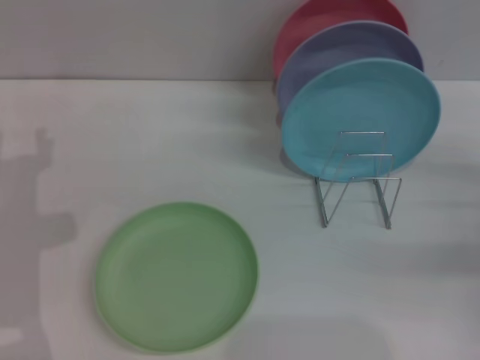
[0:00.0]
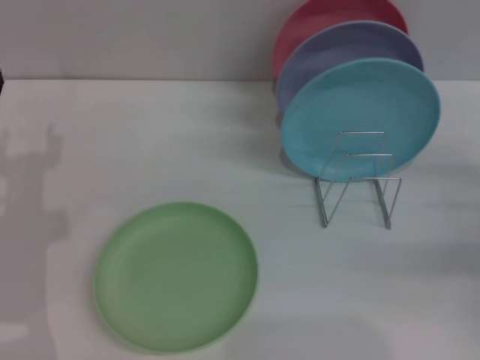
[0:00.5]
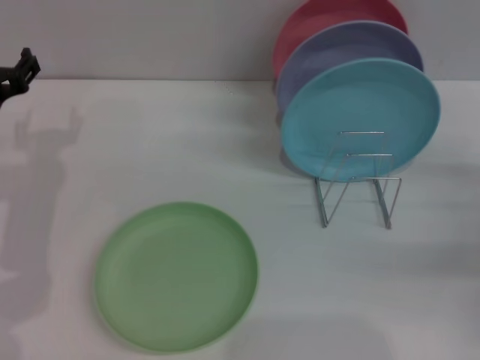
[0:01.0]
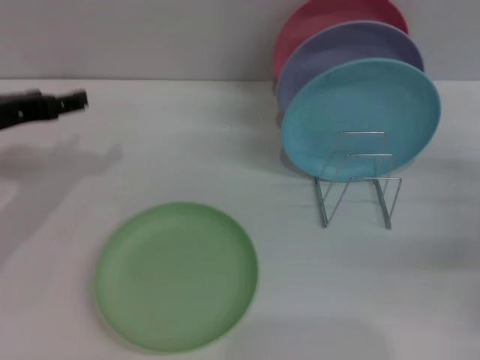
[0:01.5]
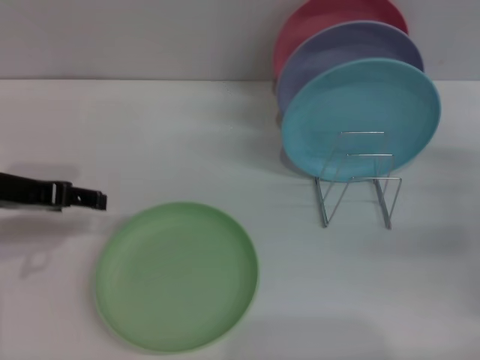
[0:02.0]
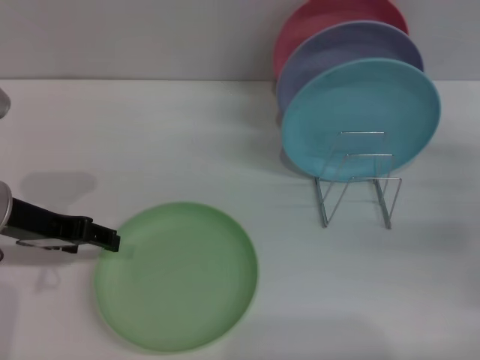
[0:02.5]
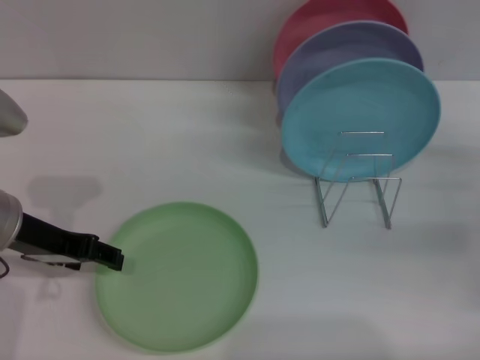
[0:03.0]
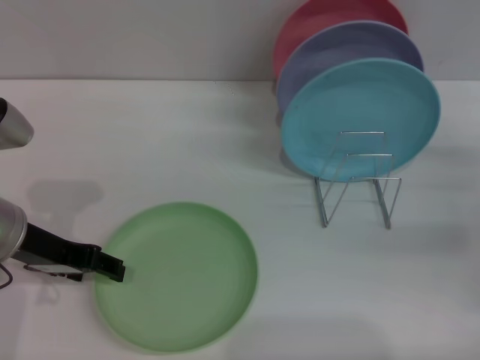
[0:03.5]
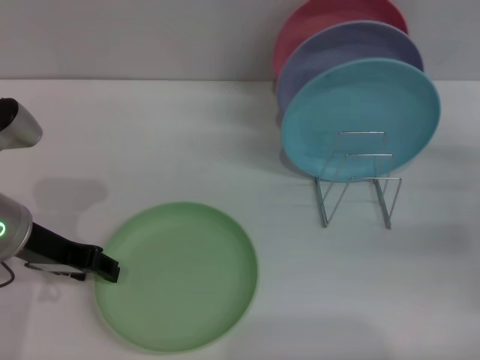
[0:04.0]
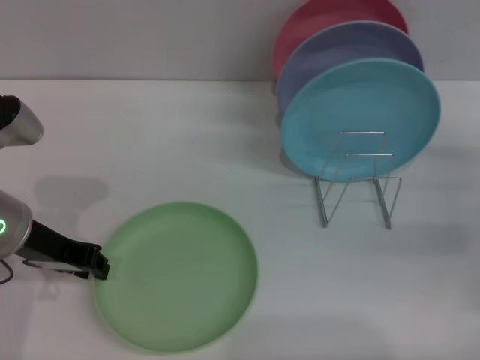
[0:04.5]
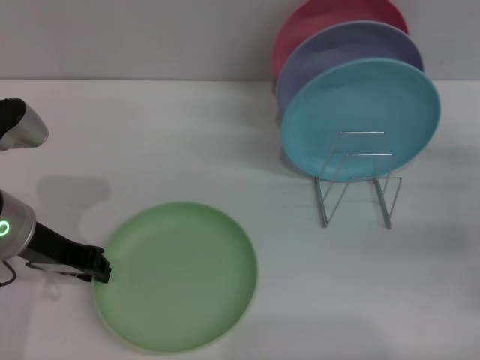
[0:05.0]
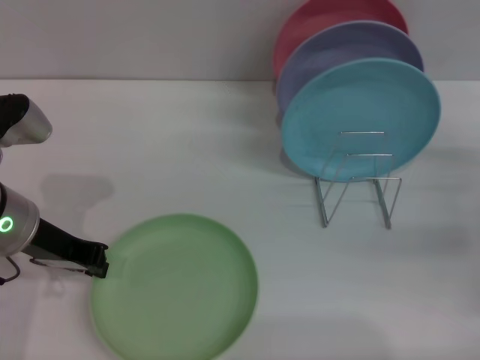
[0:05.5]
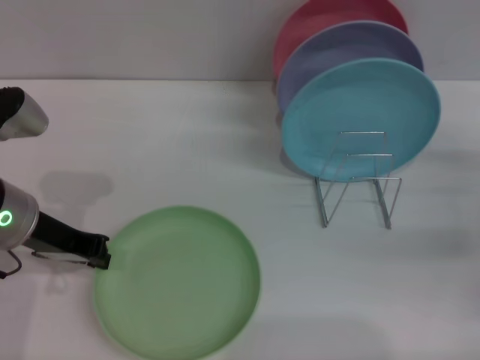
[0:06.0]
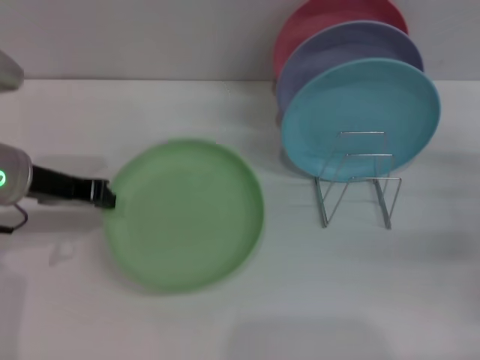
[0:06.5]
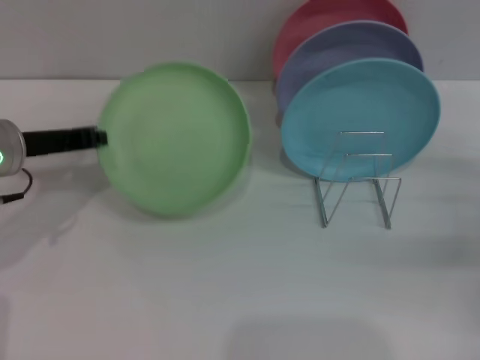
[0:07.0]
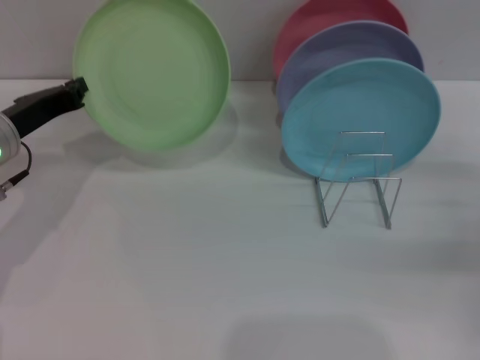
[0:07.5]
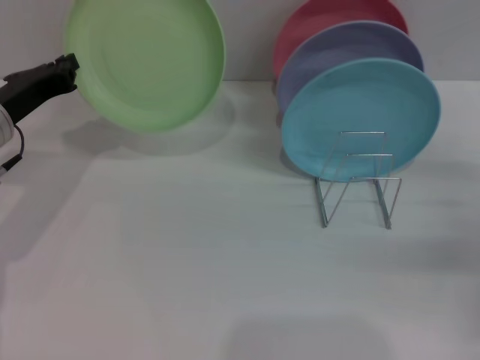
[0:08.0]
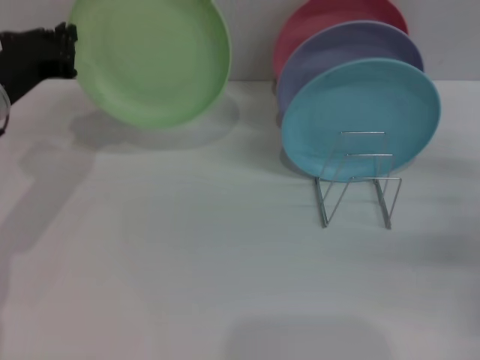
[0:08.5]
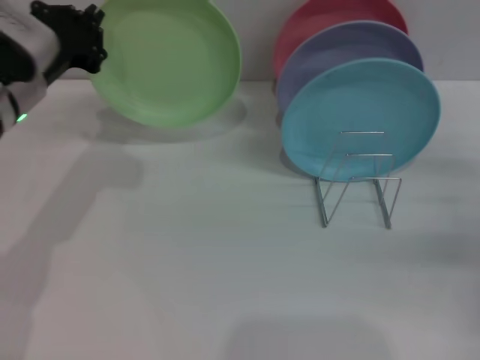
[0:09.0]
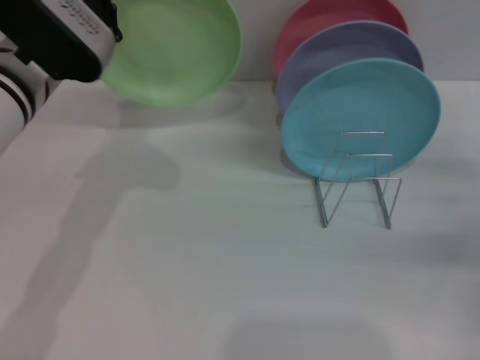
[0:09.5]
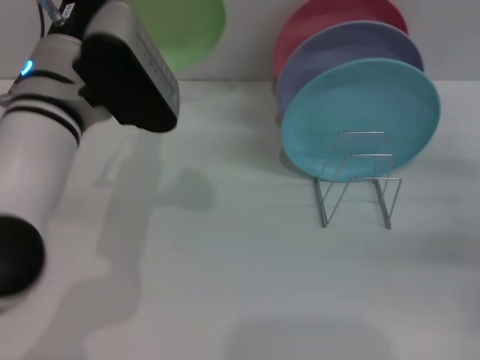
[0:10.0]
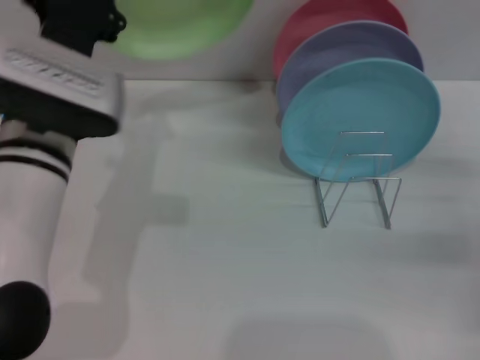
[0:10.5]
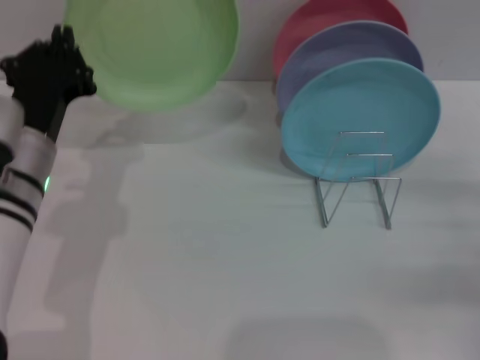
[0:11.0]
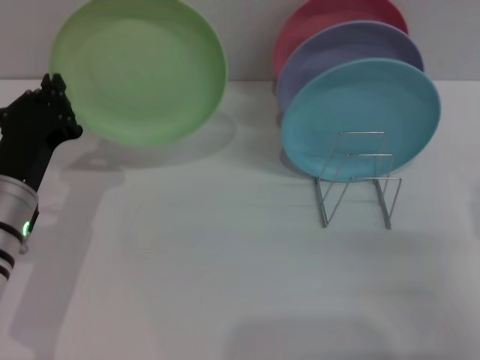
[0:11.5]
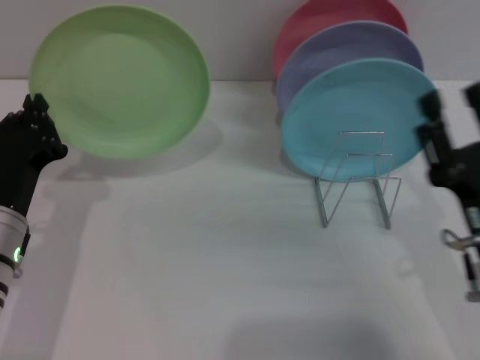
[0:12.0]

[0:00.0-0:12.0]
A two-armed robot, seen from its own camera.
Task of the whole recording: Grip the plate with one hand, pass it to the other, then set it on the shelf.
Step, 0.0 to 6.5 s: Pick up the plate with the left gripper.
0.0 to 2.0 s: The left gripper is displaced upward by about 10 cm.
2.0 to 4.0 s: The grippers move only a little.
4.0 to 6.0 s: The left gripper closes its fingers.
6.0 to 8.0 s: The left gripper ends up roughly 5 cm from where it was.
8.0 to 10.0 s: The left gripper is displaced to the right and upward by approximately 15 cm.
10.0 to 12.0 s: The right gripper shifts approximately 15 cm to the left and backward, while the left gripper is displaced downward, to the left and backward by about 15 cm.

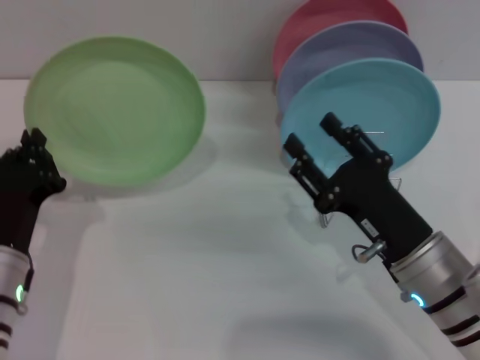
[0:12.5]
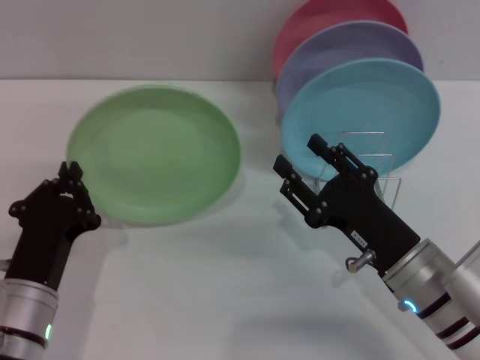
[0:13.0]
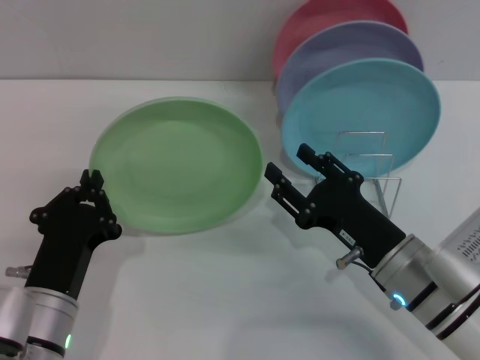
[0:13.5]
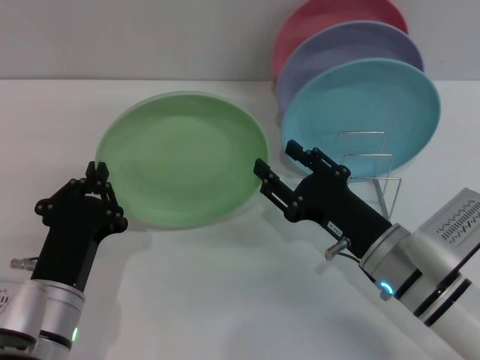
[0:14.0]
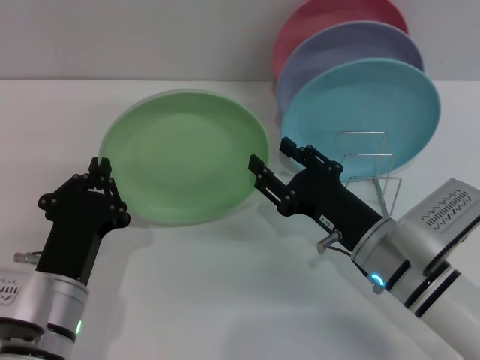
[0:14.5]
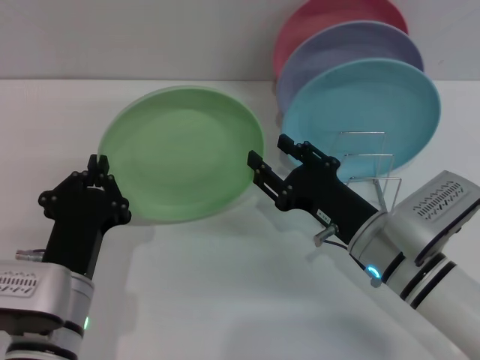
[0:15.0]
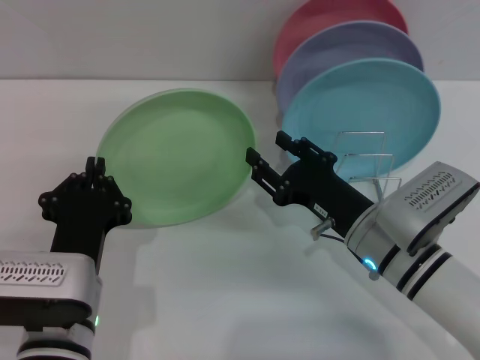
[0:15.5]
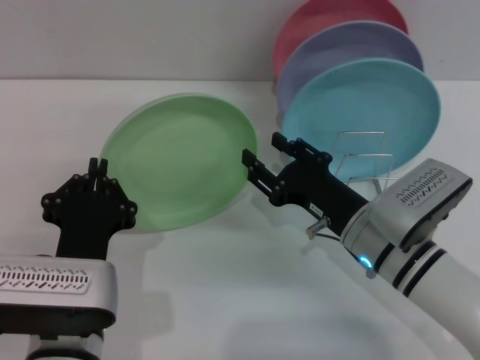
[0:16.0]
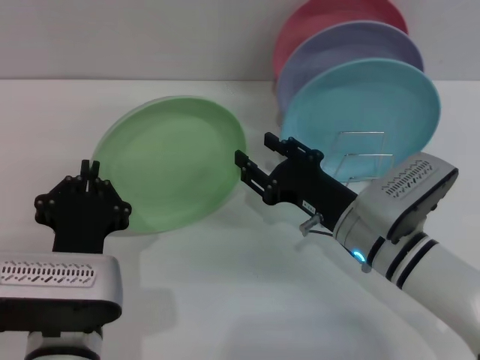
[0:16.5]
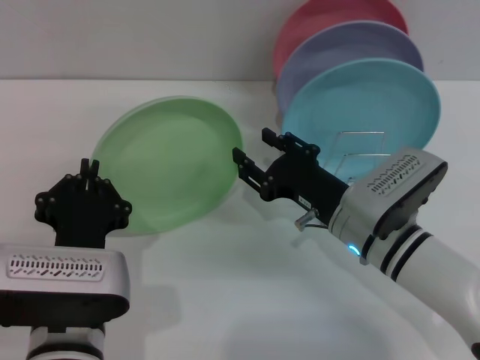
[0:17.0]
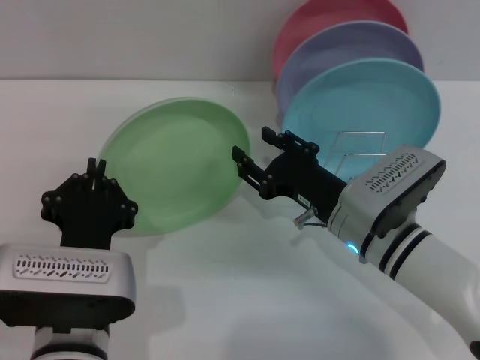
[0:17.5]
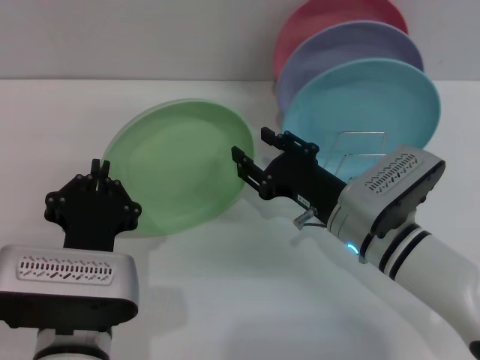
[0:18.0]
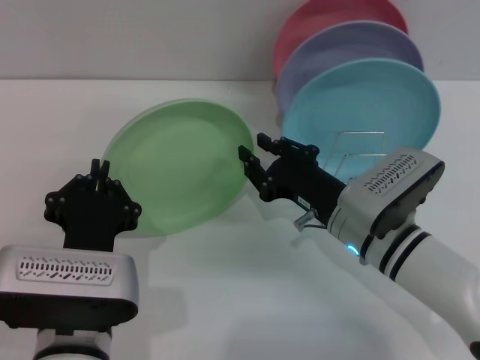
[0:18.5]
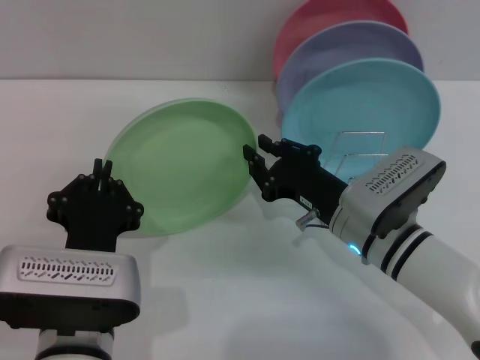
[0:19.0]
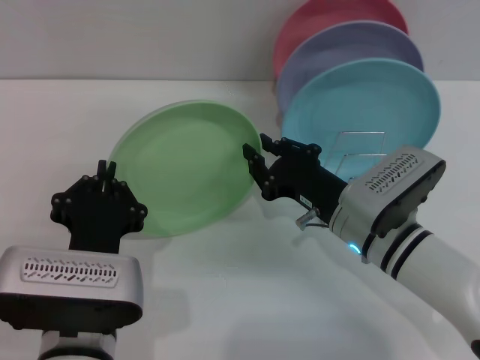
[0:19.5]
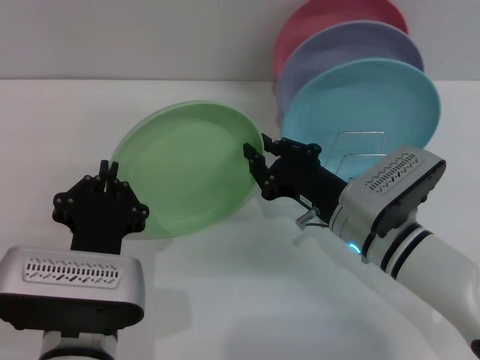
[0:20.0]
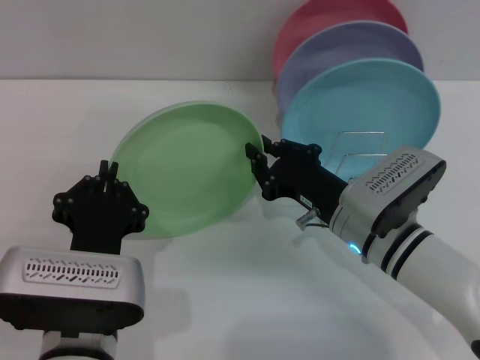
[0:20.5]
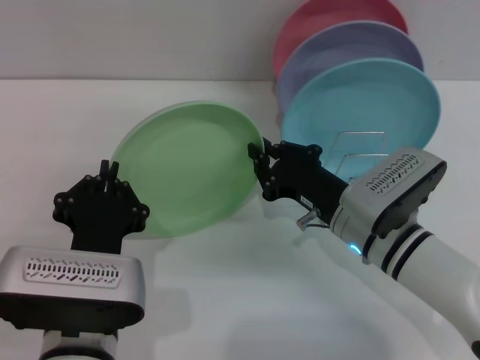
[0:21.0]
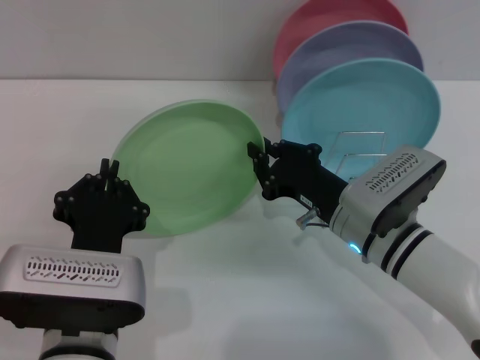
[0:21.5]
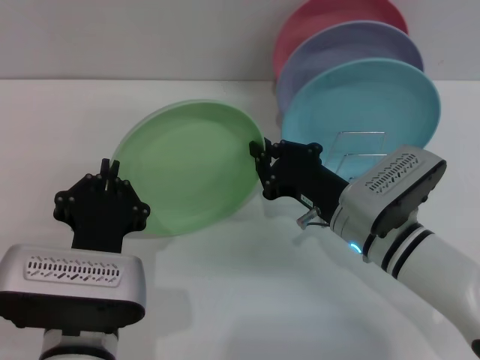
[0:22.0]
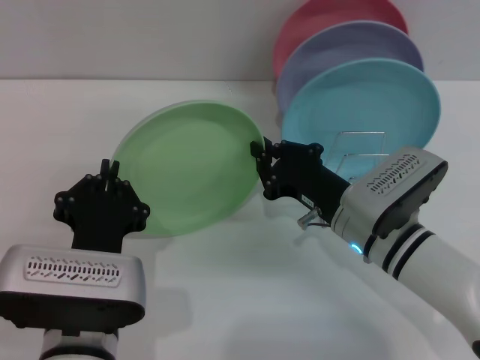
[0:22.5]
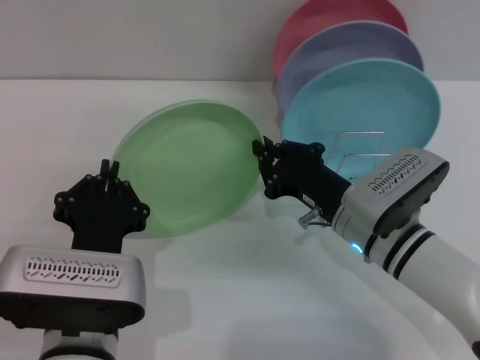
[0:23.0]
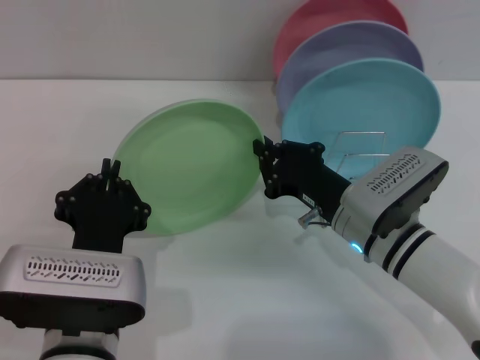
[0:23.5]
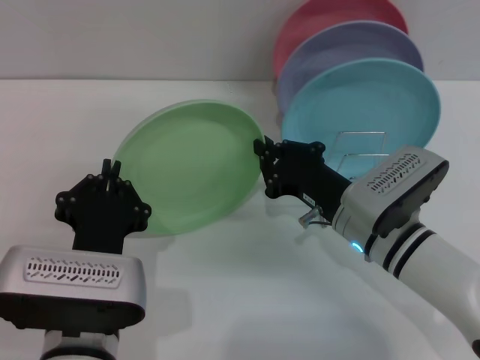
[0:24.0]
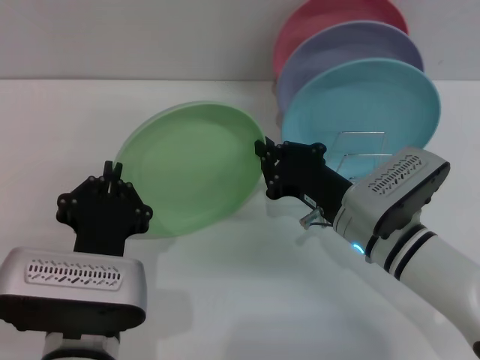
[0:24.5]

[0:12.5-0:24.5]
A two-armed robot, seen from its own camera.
Task of the whole recording: Grip the plate with one hand, pass it to the other, then set it on the shelf.
12.5 to 14.5 s: The left gripper is displaced to the right by about 5 cm.
16.5 to 18.5 s: The right gripper closes its fingers.
18.5 to 24.5 s: Neither gripper changes place.

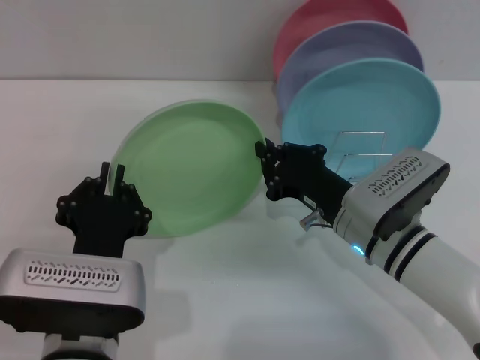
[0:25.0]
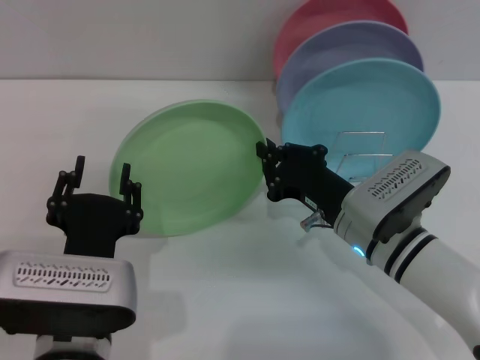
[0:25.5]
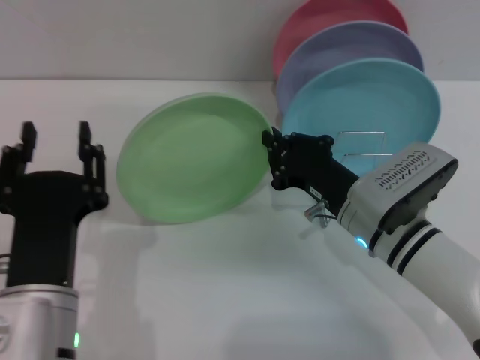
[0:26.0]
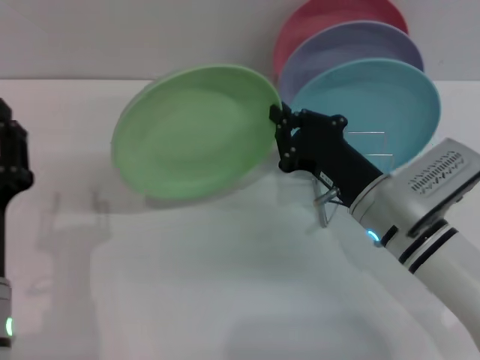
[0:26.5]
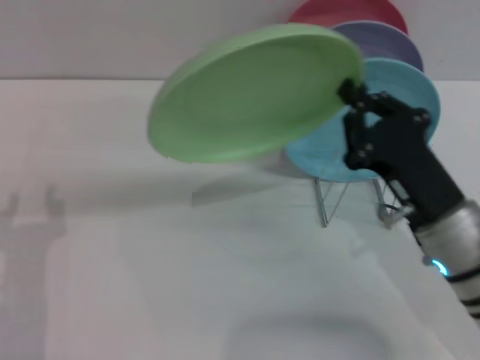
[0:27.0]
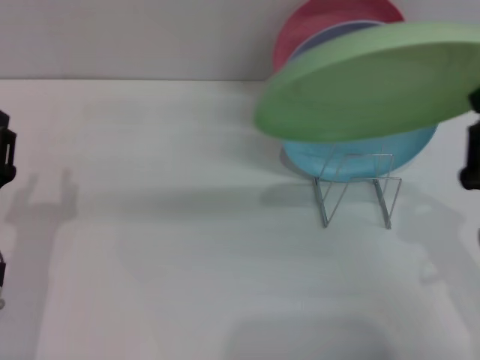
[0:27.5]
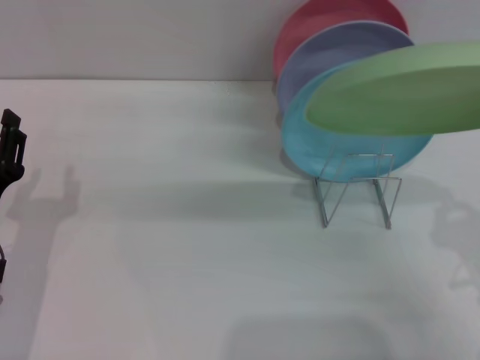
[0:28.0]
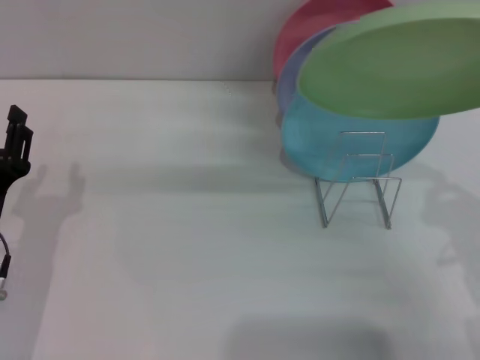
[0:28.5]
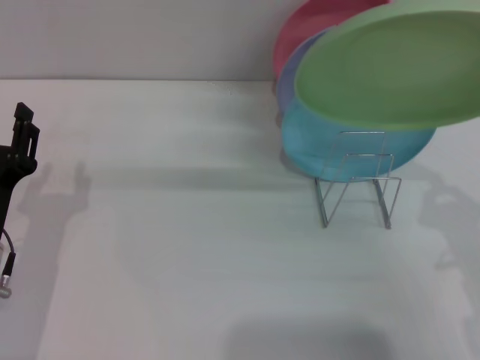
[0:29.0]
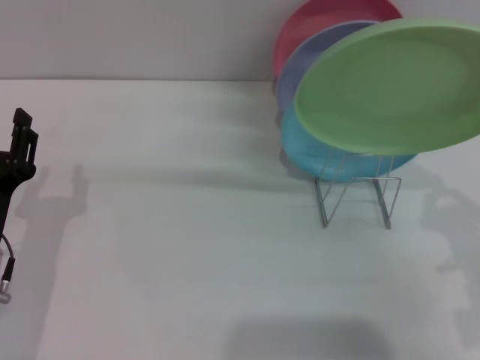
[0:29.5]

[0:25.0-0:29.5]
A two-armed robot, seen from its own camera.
Task of the whole recording: Grip the plate with one hand, pass it to the other, then set it on the shelf.
25.0 to 27.0 s: The right gripper goes approximately 5 cm backward. Meanwhile the left gripper goes about 10 cm to the left, and opens its fingers.
27.0 to 29.5 s: The left gripper changes place by about 5 cm, while the right gripper shifts some 10 cm to the right and backward.
